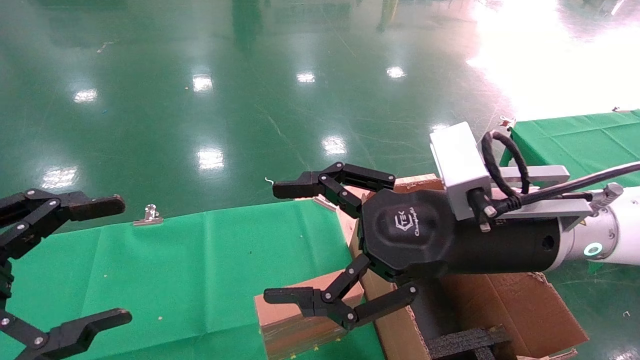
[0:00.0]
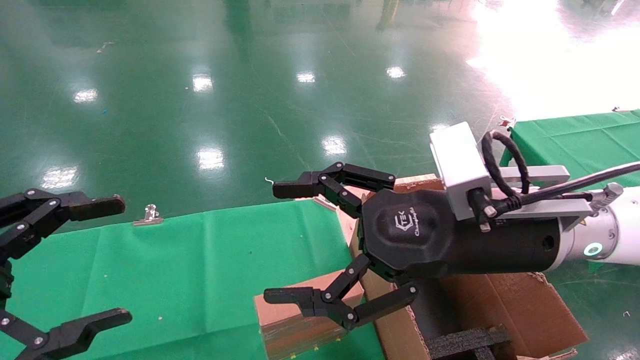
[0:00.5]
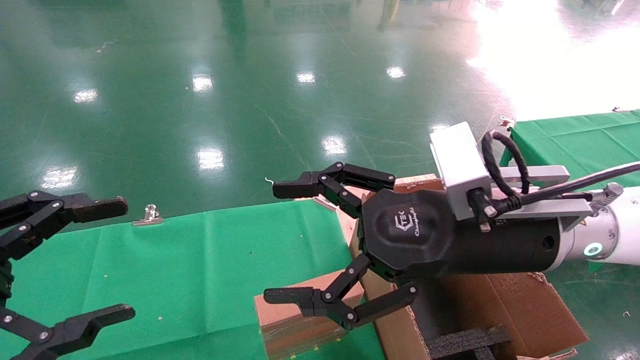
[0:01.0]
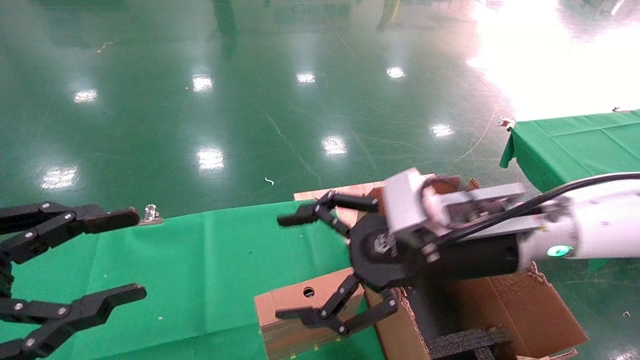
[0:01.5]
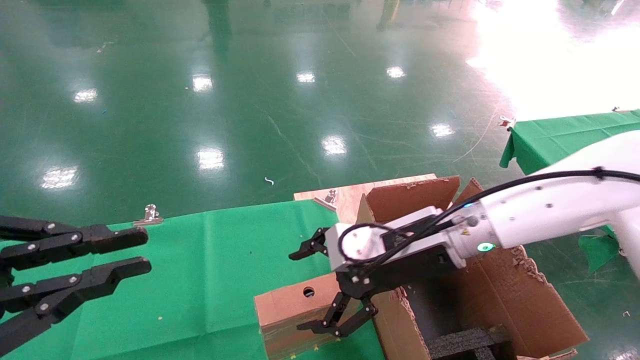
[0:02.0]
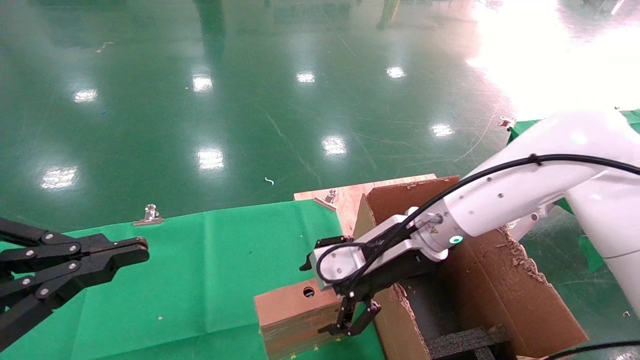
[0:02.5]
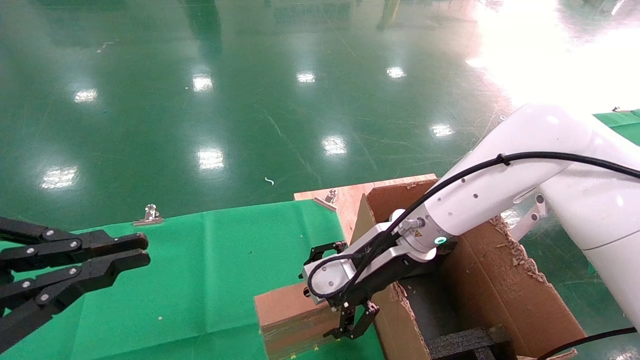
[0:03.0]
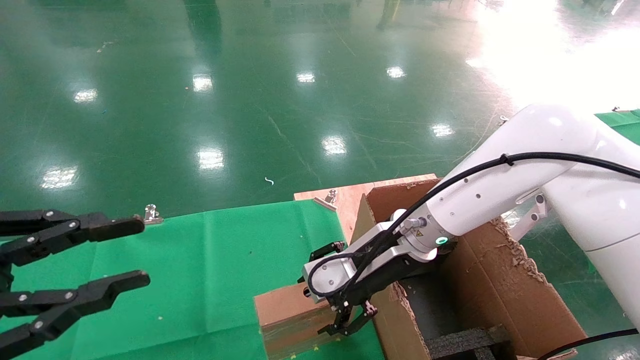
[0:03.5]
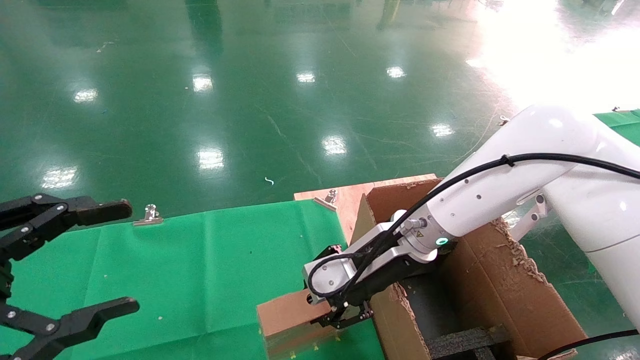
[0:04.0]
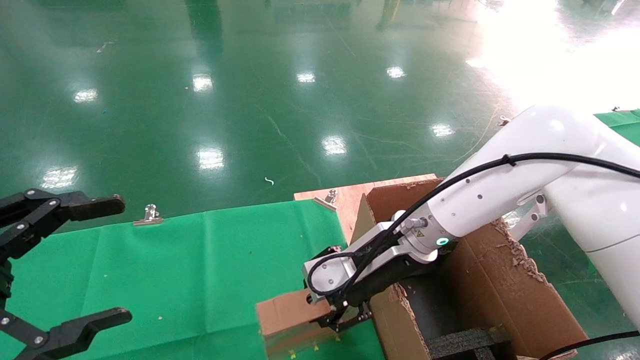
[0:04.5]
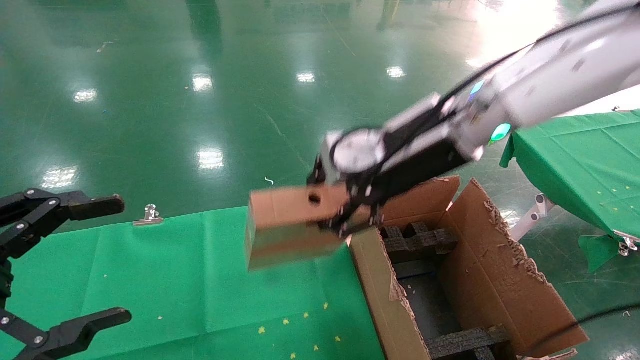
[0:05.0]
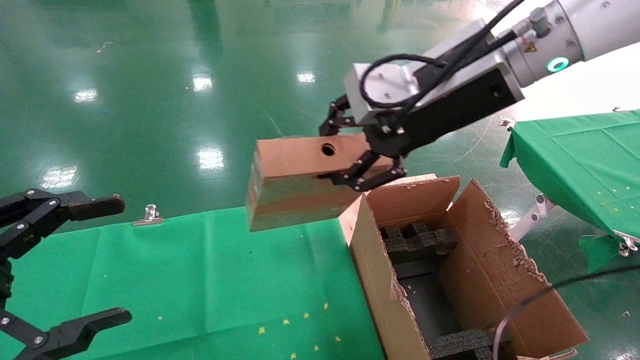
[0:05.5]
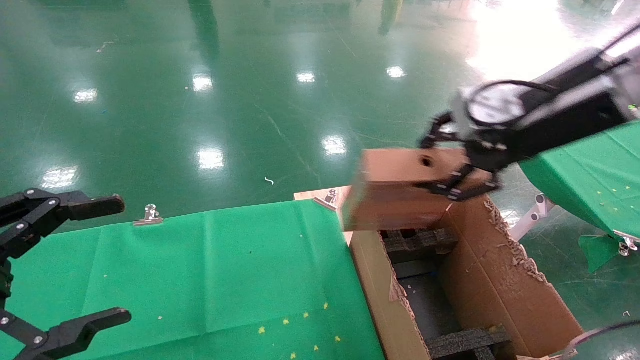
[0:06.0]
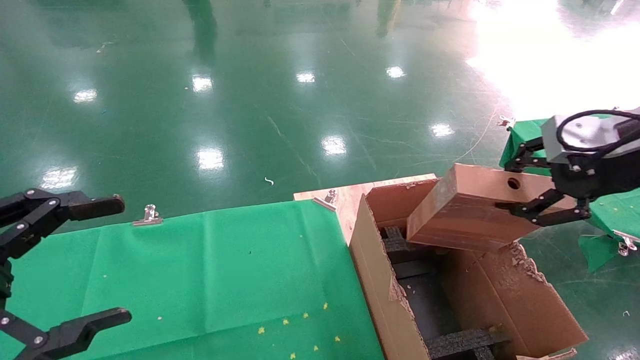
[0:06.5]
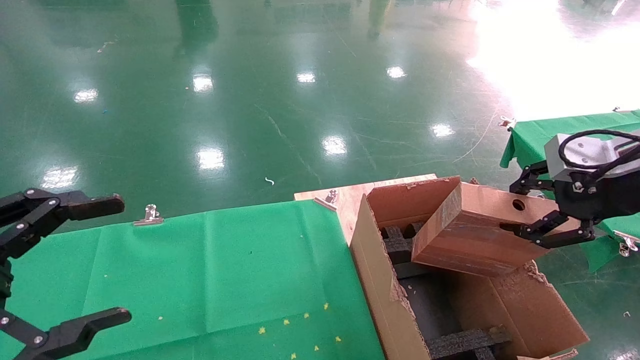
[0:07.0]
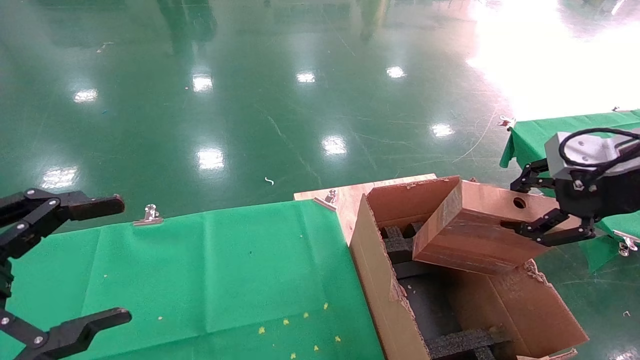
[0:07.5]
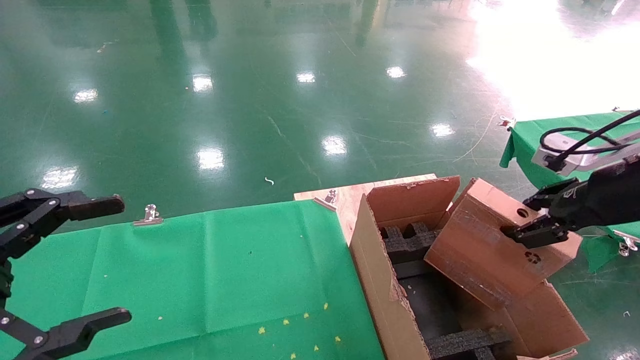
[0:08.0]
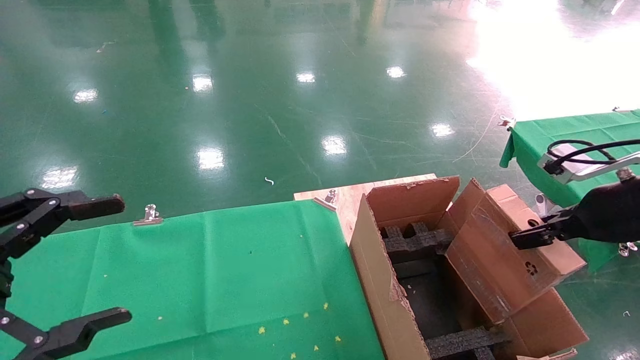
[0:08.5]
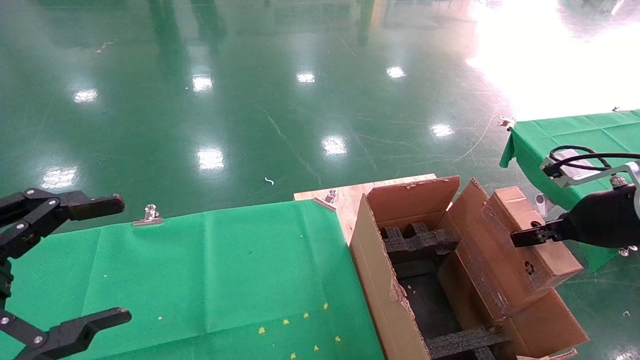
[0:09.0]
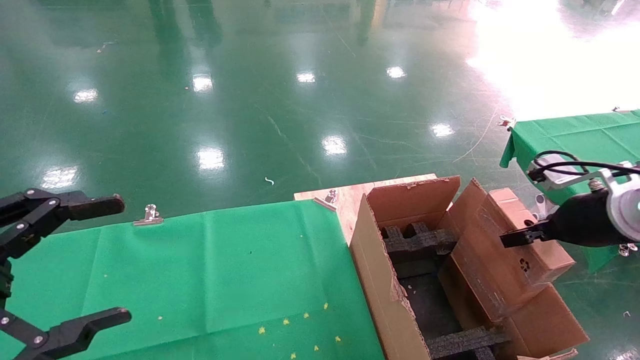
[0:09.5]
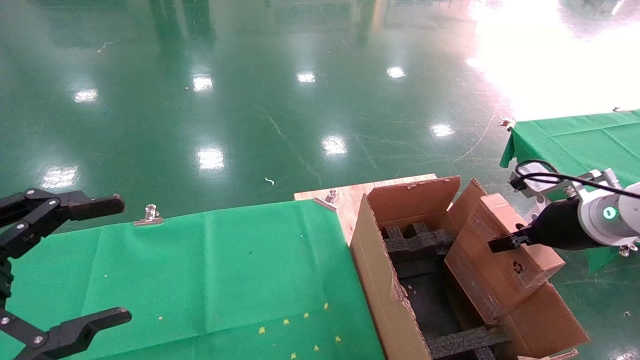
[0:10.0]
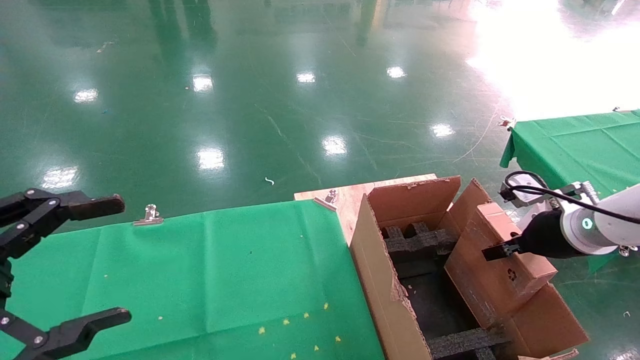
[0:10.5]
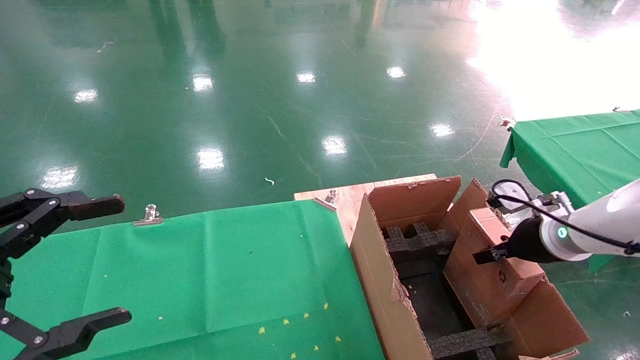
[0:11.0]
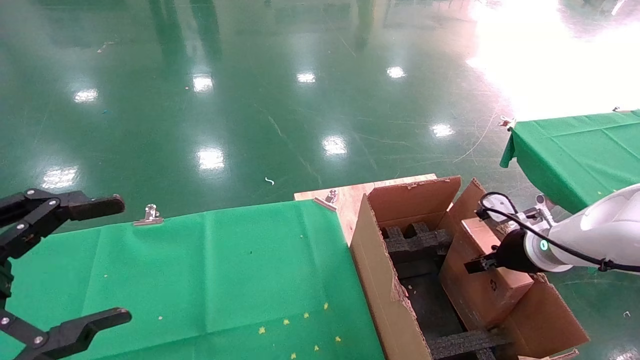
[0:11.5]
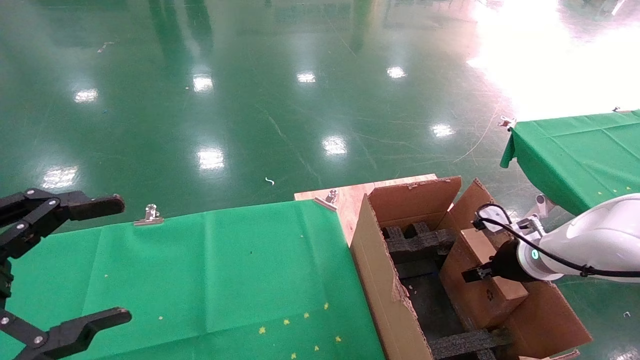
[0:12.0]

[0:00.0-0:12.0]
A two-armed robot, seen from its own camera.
Task of the whole recording: using a robotic arm to pick up a cardboard box and palace it the carton.
Step, 0:01.5 to 0:04.0: Pick up the mouse and the power cord paper box.
0:00.0 to 0:02.0: The right gripper moves forward and downward, some 10 cm; the left gripper closes its fingers.
0:02.0 to 0:04.0: The left gripper opens. The right gripper closes.
0:04.0 to 0:06.0: The right gripper heads upward and to the right, covering some 25 cm.
0:06.0 to 0:08.0: The right gripper travels to the right and downward by some 15 cm.
0:08.0 to 0:10.0: The right gripper heads downward and forward, covering about 10 cm.
0:10.0 to 0:12.0: The right gripper moves downward and forward, roughly 10 cm.

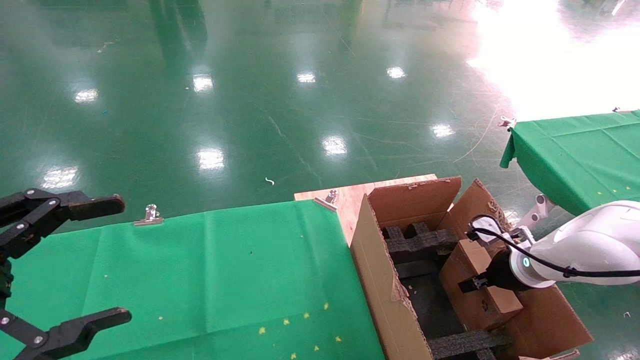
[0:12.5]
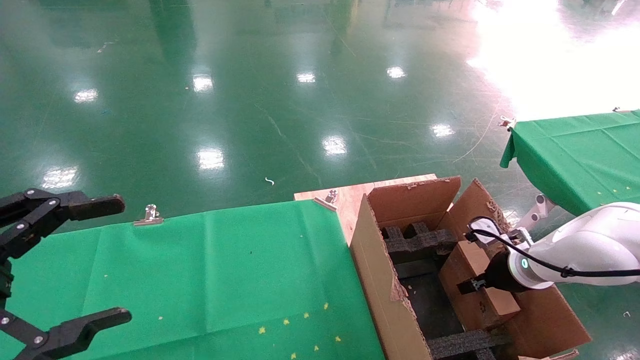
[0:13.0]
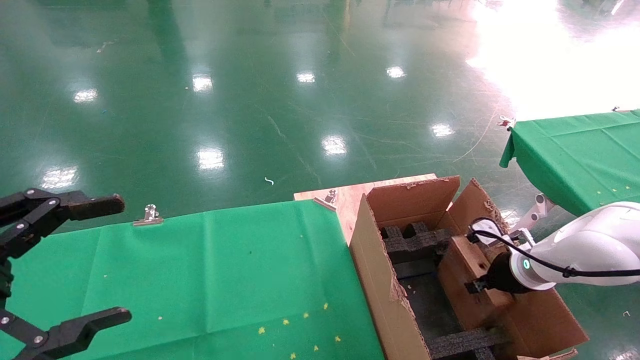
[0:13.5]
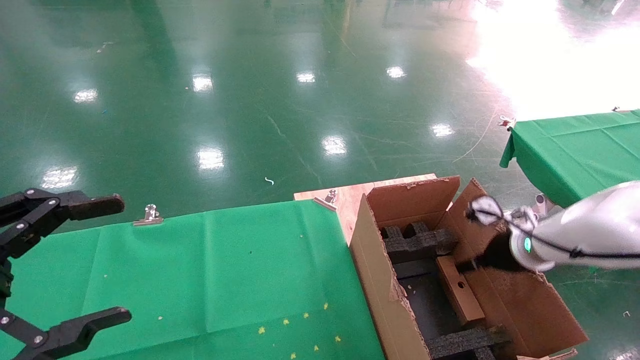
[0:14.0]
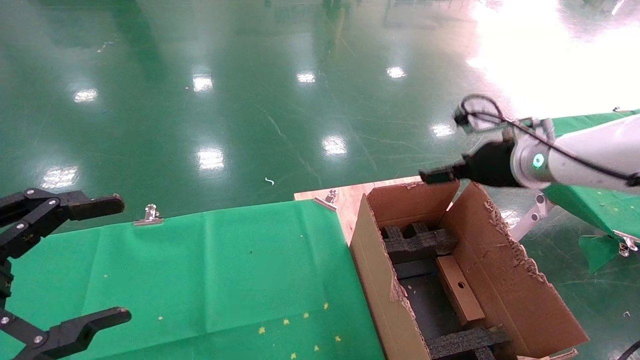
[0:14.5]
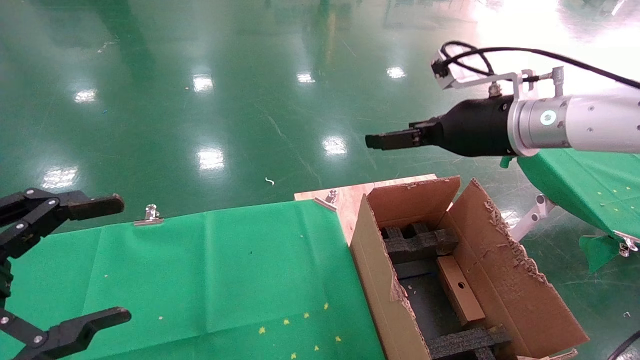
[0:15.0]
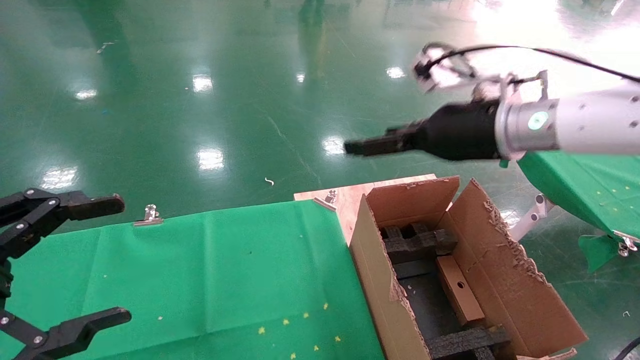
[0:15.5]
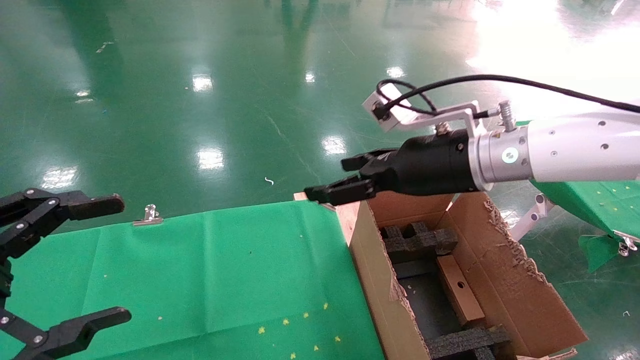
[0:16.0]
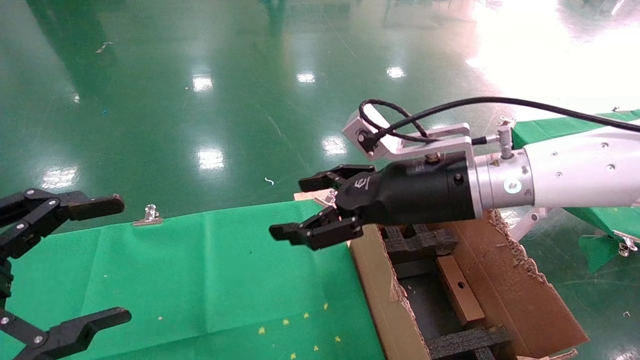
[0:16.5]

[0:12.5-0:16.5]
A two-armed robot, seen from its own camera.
Task of the whole recording: using a robotic arm to pick up a cardboard box and palace it the carton.
0:12.5 to 0:14.5: The right gripper goes about 20 cm upward, and opens.
0:14.5 to 0:16.5: The right gripper heads to the left and backward, covering roughly 15 cm.

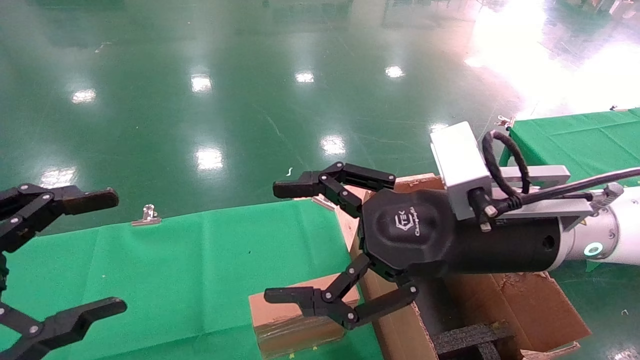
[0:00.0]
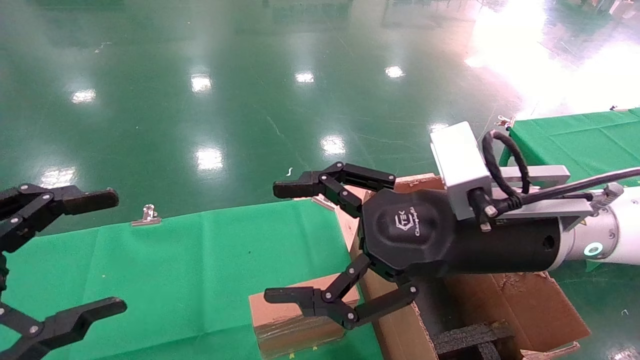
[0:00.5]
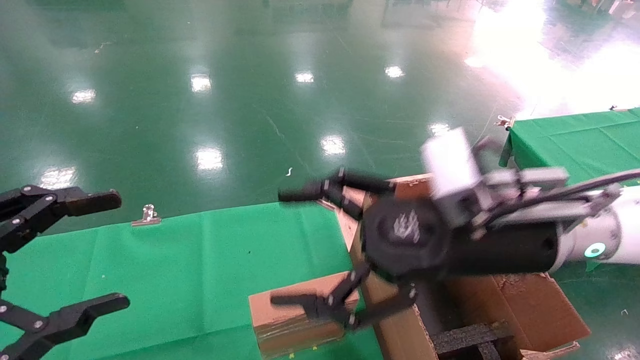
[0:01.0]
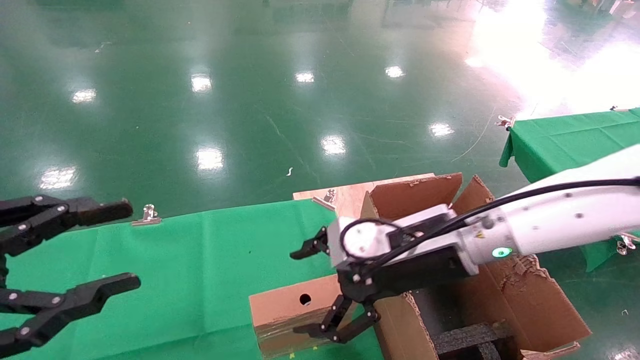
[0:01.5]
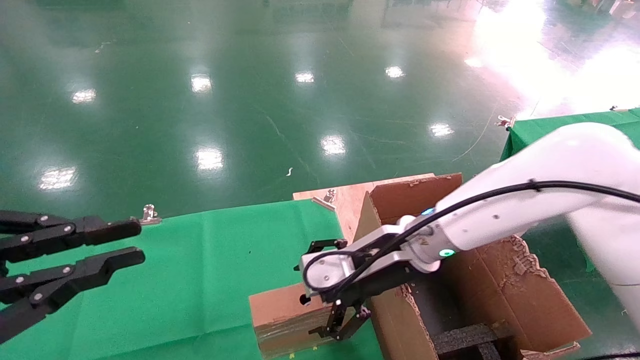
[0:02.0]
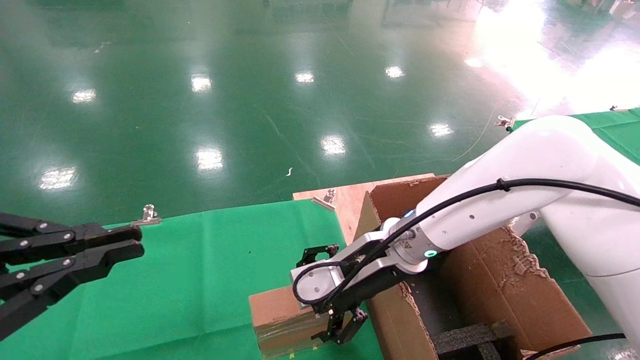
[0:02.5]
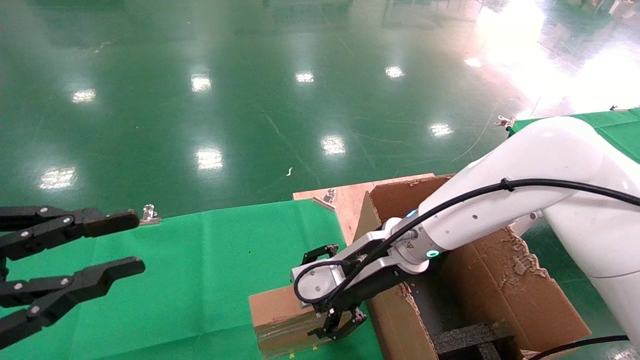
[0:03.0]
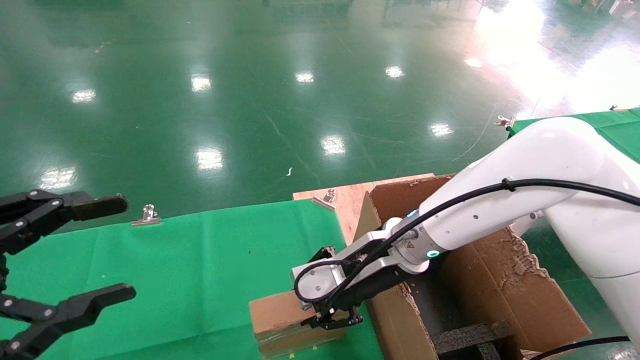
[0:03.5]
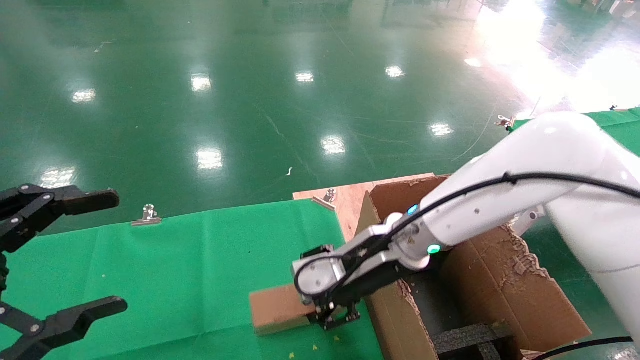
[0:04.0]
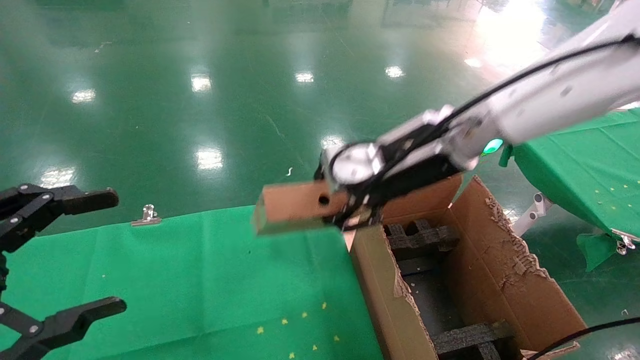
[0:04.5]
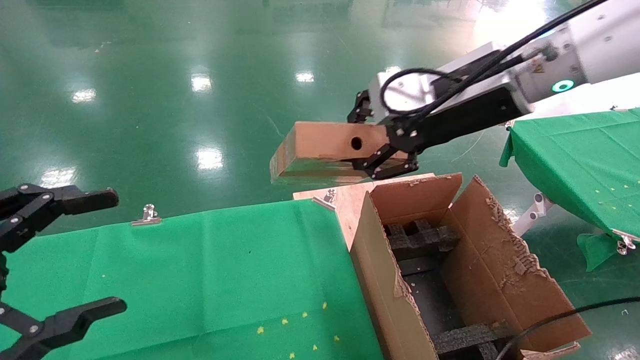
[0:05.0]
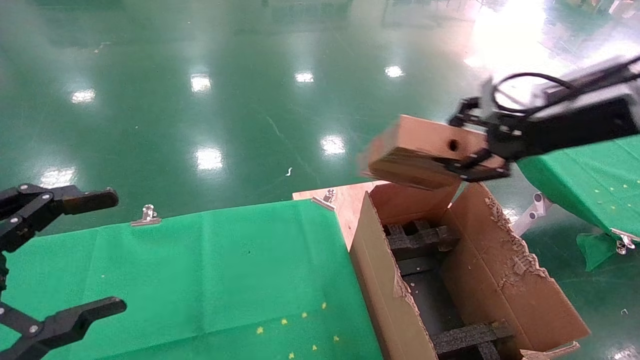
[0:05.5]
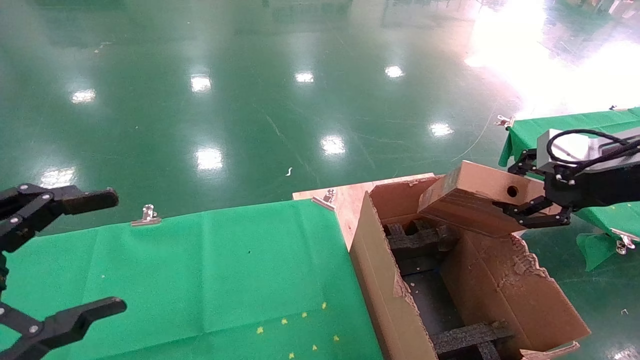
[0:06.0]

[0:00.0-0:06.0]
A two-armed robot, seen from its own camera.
Task of the whole recording: using a robotic arm to pick up a cardboard box and palace it the carton.
Step, 0:01.5 to 0:03.5: Pick up the mouse and the power cord paper box.
0:00.0 to 0:02.0: The right gripper heads forward, downward and to the left, covering some 15 cm, while the left gripper closes its fingers.
0:02.0 to 0:04.0: The right gripper closes its fingers, while the left gripper opens up.
0:04.0 to 0:06.0: The right gripper goes roughly 30 cm to the right.
